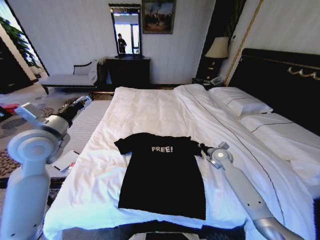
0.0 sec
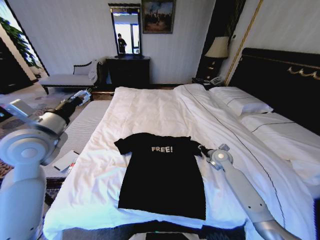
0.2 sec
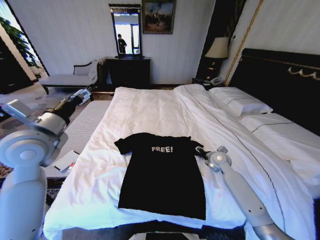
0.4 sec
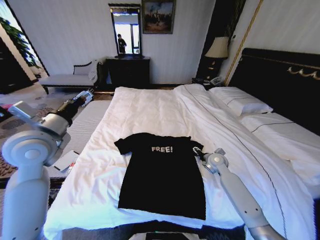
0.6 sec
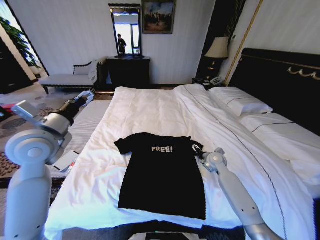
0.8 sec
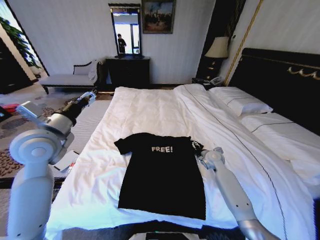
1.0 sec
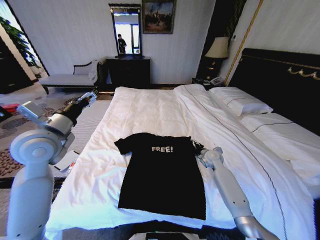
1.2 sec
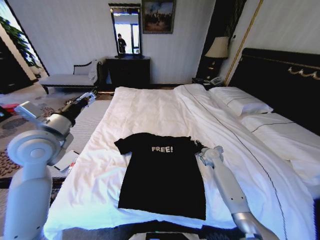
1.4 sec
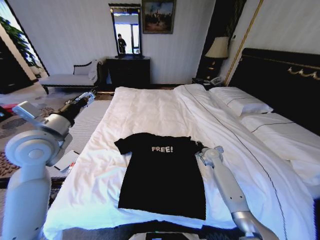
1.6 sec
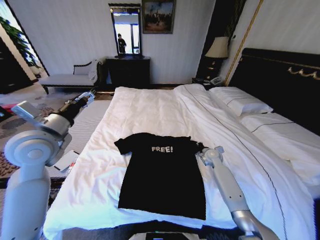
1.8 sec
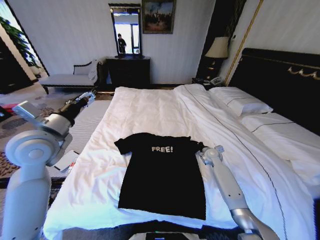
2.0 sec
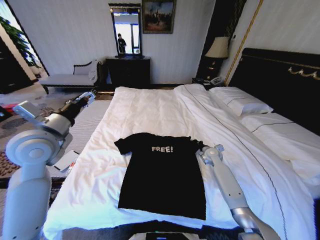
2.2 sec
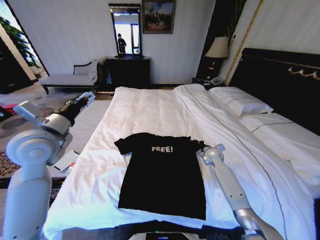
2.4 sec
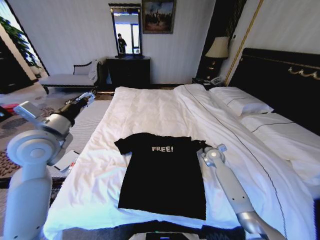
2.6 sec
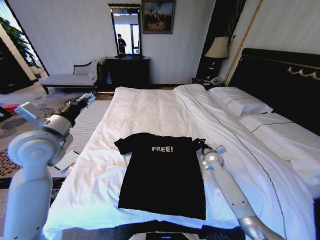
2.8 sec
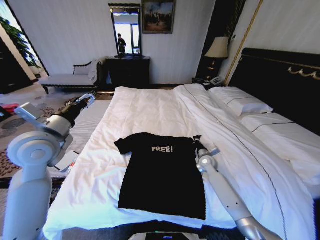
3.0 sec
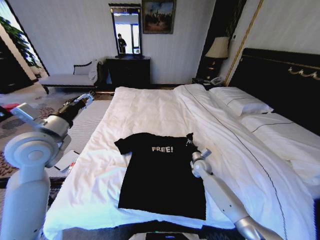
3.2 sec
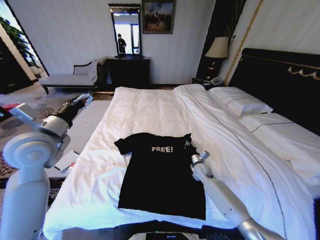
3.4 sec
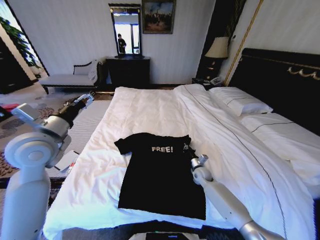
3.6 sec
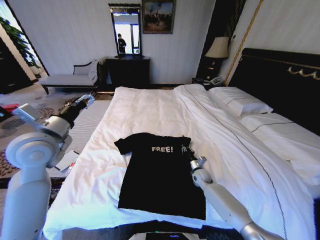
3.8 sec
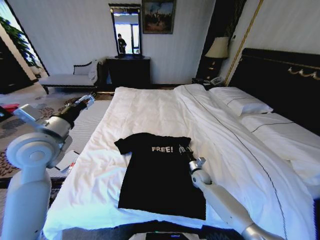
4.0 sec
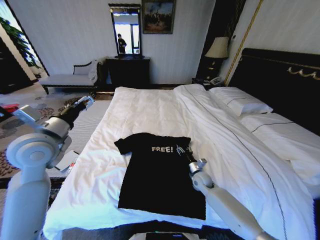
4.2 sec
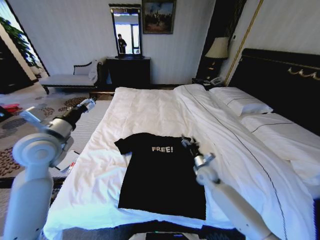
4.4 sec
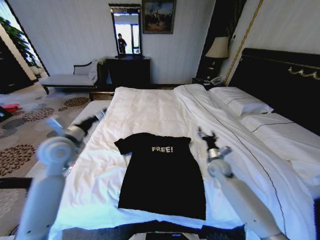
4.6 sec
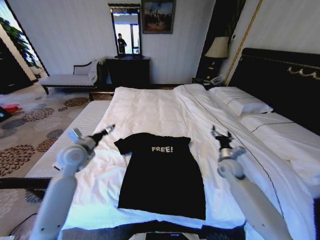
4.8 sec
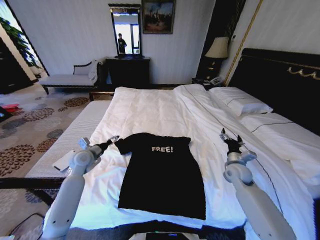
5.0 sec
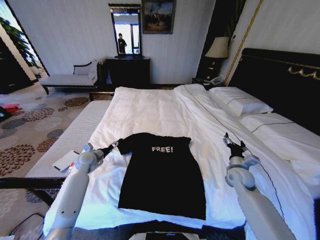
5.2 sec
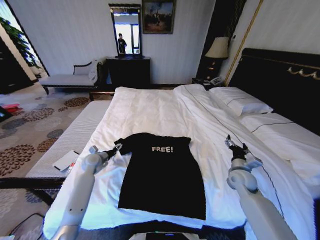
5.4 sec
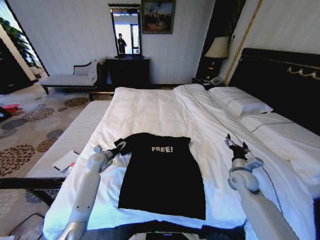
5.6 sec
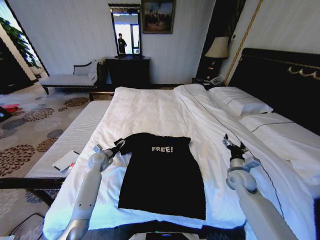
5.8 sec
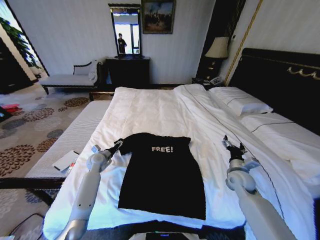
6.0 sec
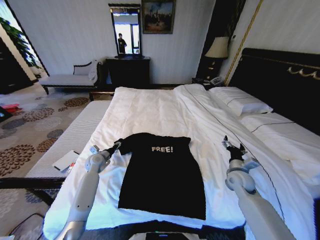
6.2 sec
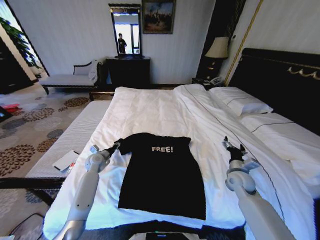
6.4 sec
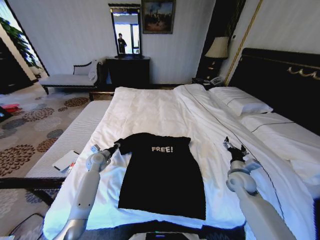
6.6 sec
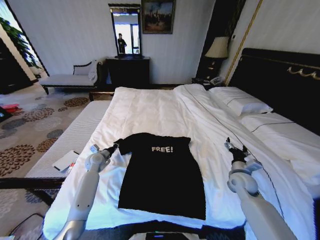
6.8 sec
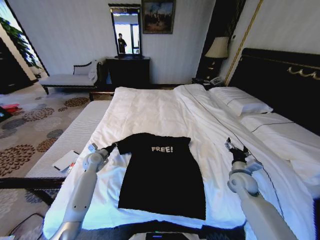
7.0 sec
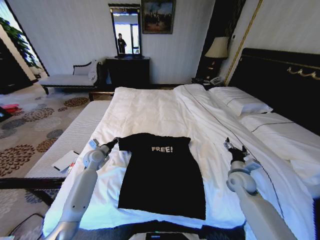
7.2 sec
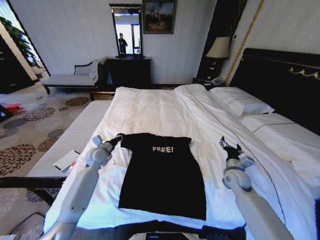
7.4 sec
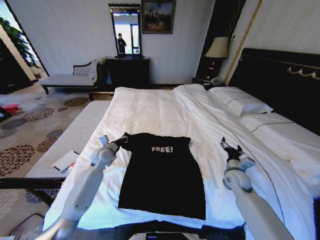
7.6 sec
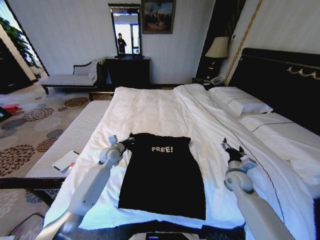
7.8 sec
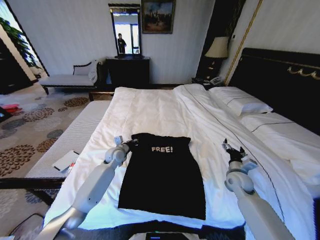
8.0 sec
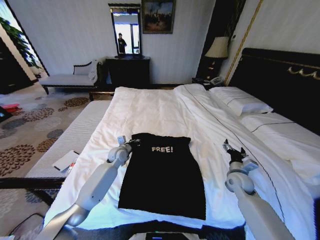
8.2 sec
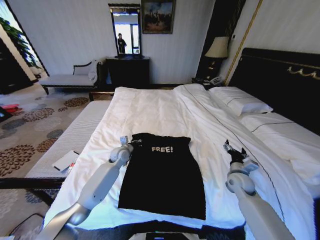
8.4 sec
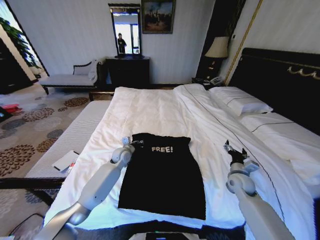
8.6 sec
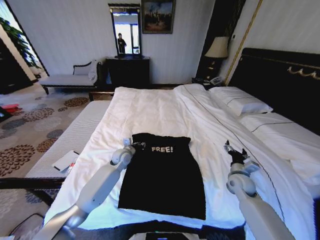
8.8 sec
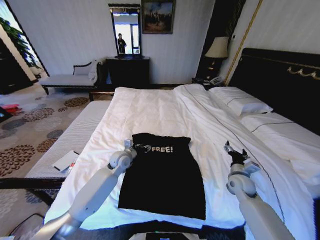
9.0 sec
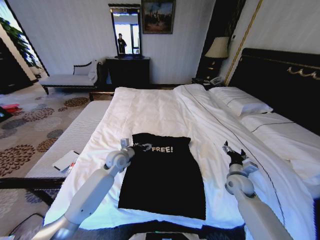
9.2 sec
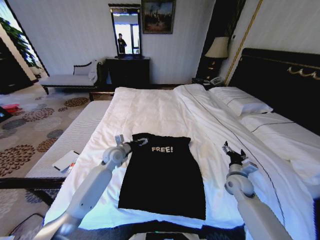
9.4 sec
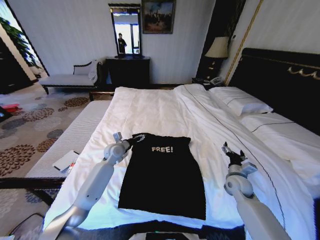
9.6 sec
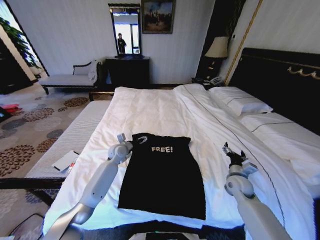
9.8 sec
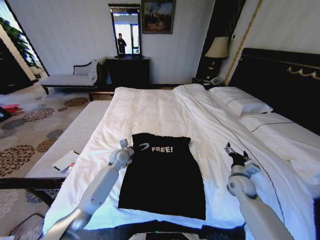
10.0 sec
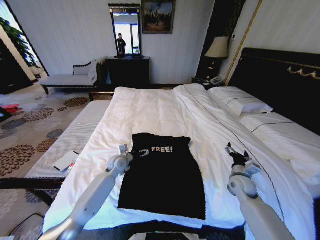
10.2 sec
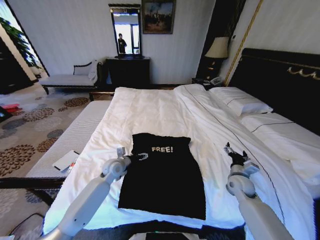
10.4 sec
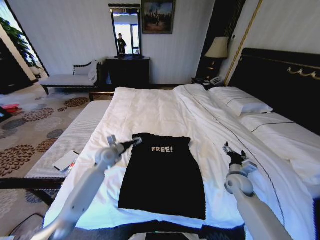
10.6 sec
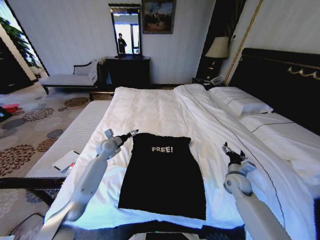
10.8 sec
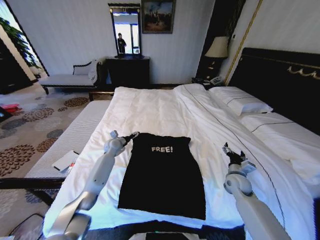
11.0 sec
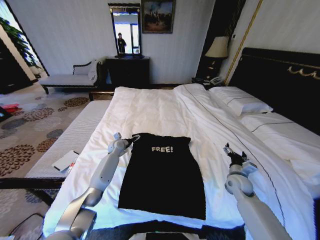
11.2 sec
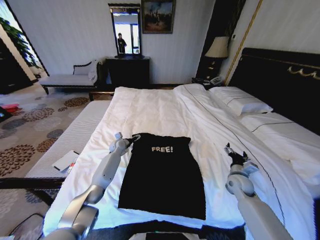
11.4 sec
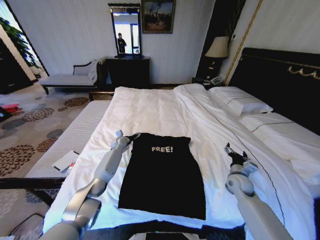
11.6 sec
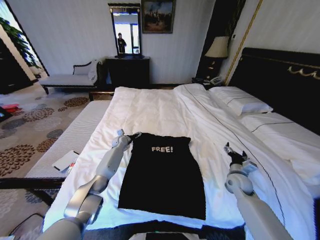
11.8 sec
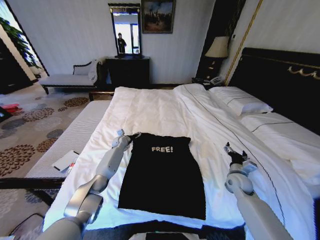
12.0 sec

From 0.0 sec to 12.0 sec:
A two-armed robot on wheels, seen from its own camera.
Task of the whole recording: Fold the clothes on the bed.
From 0.0 sec to 1.6 sec: The right gripper opens, then closes again.
From 1.6 sec to 3.0 sec: The right gripper changes place by roughly 5 cm, and closes its fingers.
From 3.0 sec to 4.4 sec: The right gripper travels backward by about 5 cm, travels downward and back again, approximately 5 cm each way, and opens up.
From 4.4 sec to 6.0 sec: The right gripper is displaced to the right by approximately 10 cm; the left gripper moves downward and forward, about 30 cm.
From 6.0 sec to 7.6 sec: The left gripper shifts some 10 cm upward and to the right, and closes up.
From 7.6 sec to 9.0 sec: The left gripper moves to the right, about 10 cm, and opens up.
From 9.0 sec to 10.4 sec: The left gripper goes forward and returns, approximately 5 cm each way, and opens.
From 10.4 sec to 12.0 sec: The left gripper travels forward by about 20 cm.

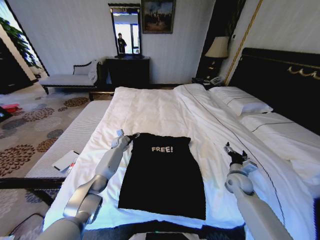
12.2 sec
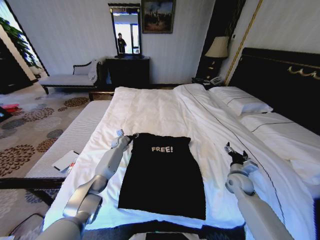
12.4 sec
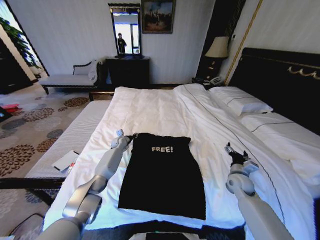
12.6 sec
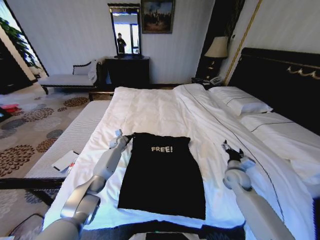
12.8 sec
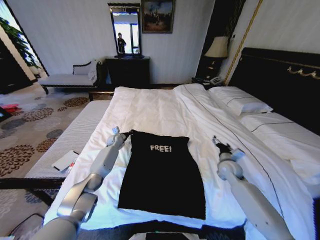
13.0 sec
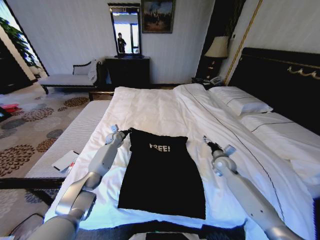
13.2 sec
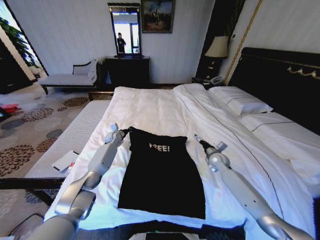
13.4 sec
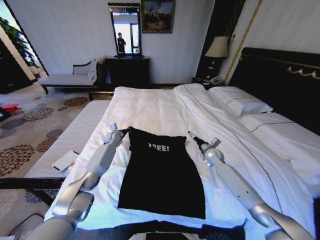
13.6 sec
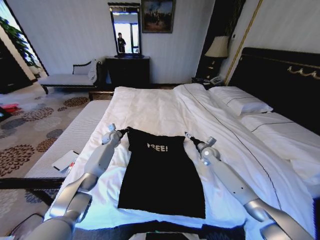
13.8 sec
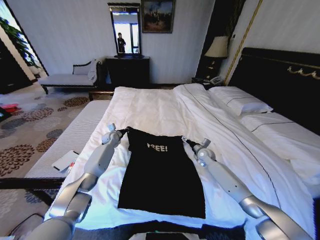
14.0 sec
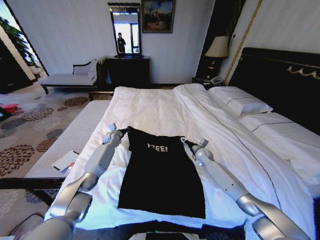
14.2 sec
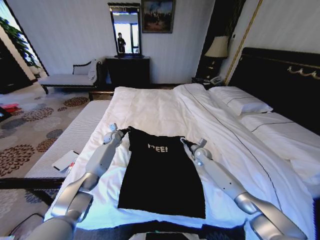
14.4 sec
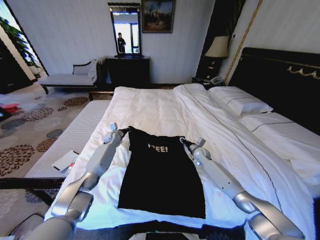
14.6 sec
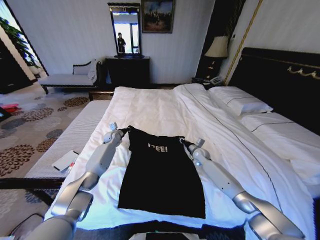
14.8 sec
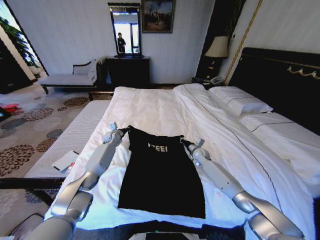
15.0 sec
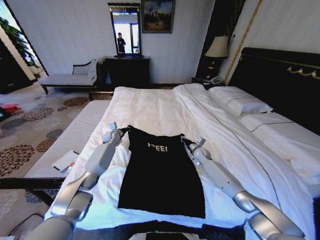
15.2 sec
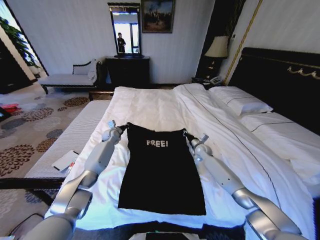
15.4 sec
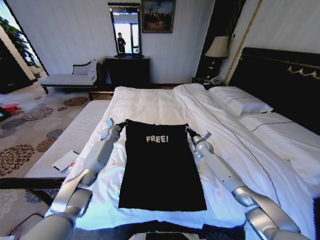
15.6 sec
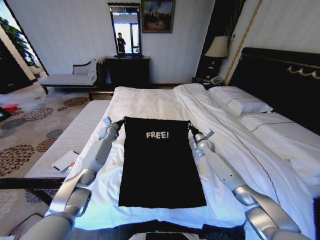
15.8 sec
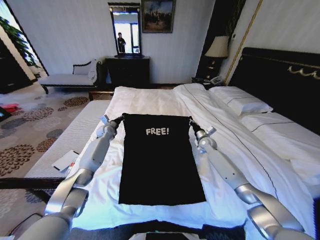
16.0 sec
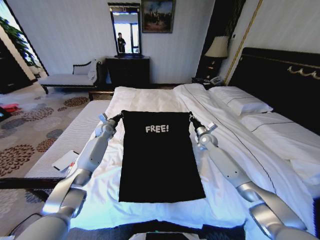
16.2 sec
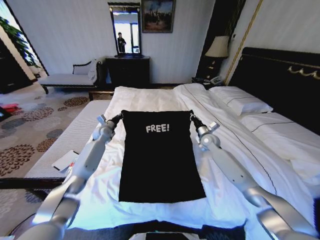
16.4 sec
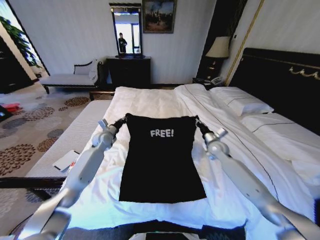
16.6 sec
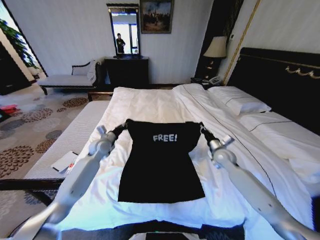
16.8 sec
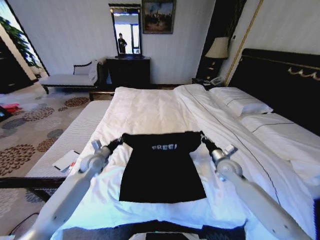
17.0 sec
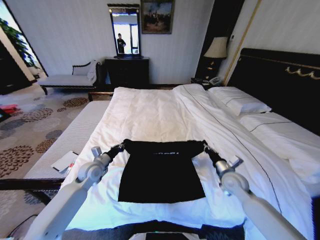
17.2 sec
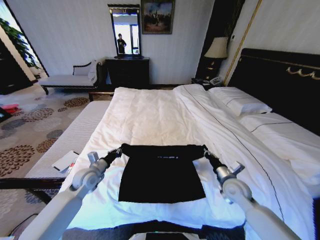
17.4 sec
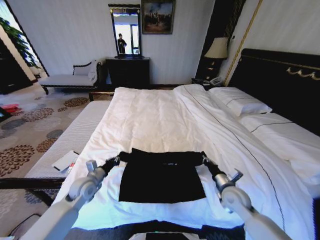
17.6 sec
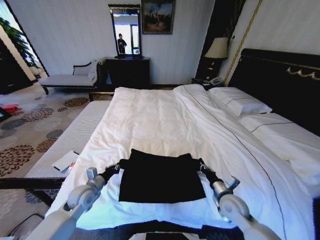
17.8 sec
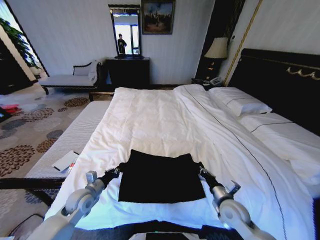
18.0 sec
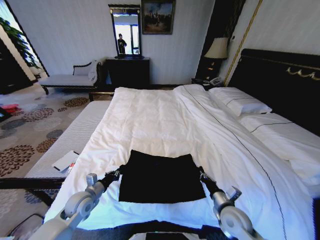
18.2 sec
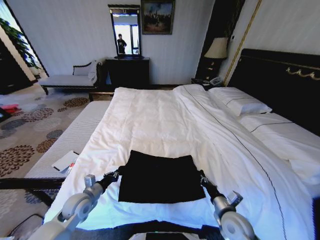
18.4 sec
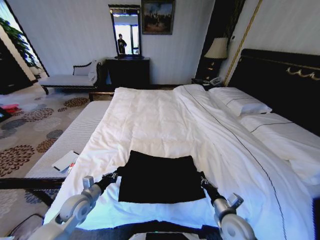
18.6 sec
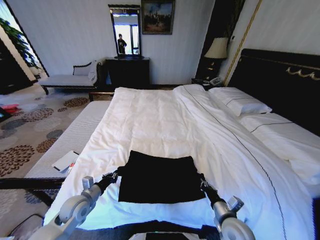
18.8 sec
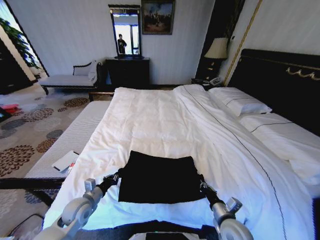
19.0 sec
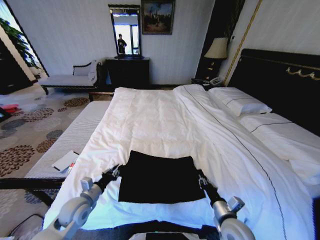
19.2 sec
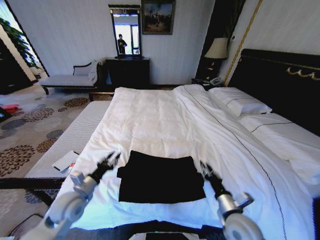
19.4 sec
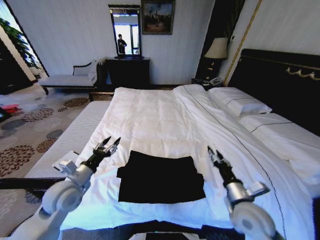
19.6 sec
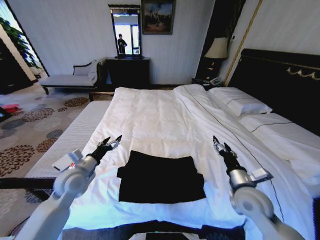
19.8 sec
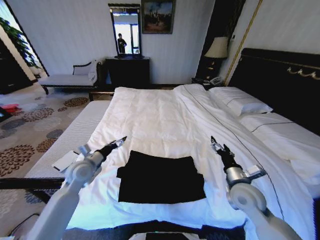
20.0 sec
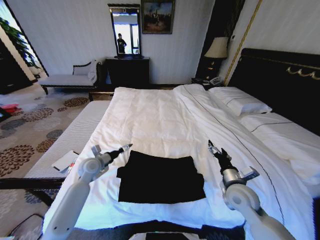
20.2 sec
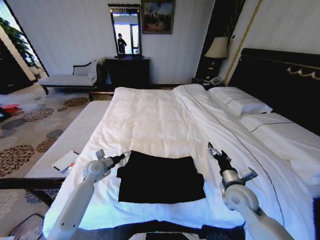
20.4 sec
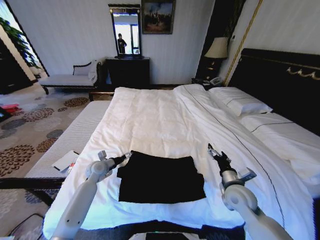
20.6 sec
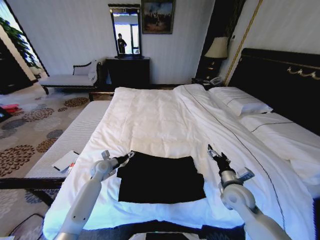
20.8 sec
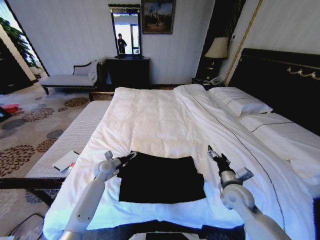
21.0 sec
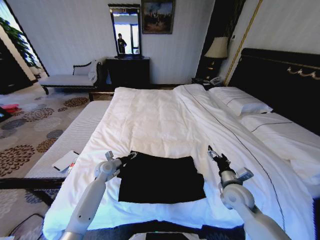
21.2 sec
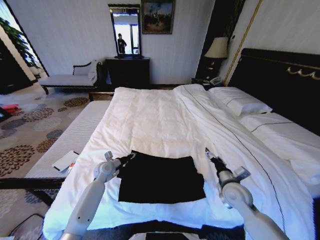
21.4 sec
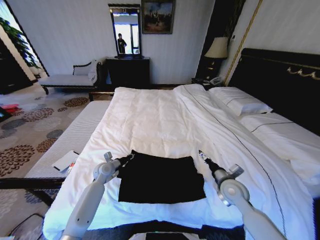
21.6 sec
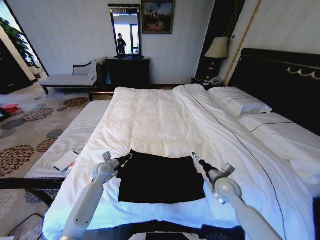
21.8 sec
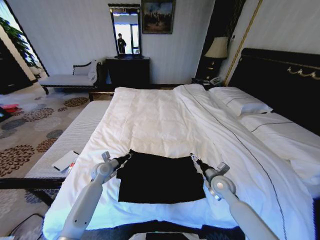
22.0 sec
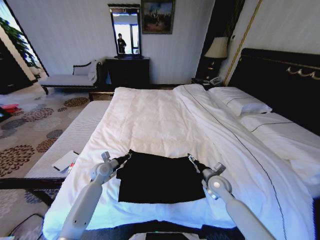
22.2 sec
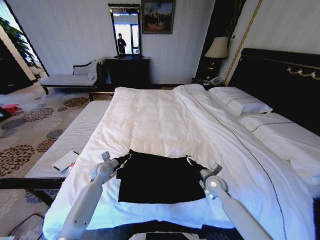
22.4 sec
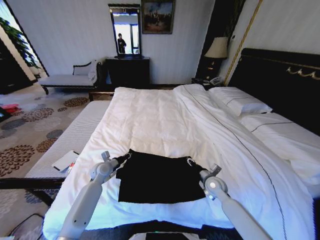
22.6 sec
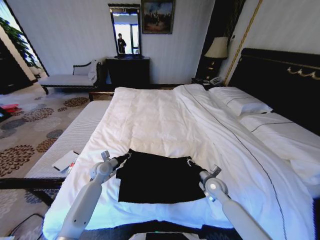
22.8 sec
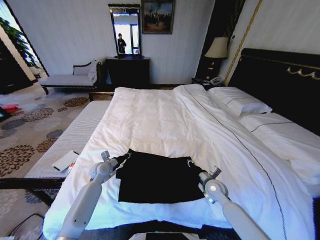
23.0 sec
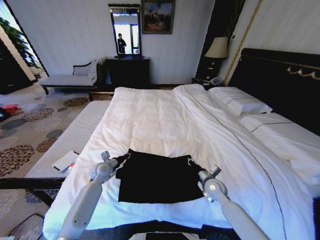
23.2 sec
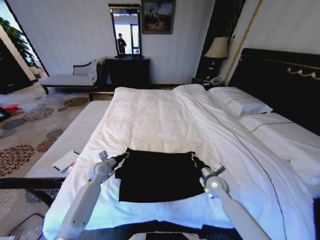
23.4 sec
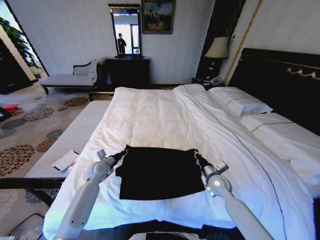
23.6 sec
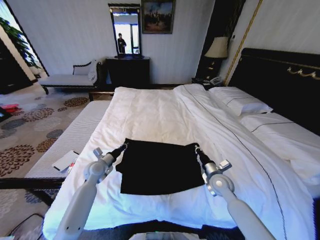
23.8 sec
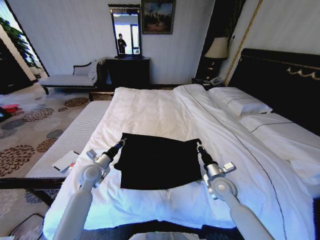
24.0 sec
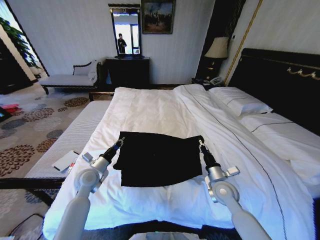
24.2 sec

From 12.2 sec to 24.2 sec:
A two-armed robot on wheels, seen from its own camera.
Task of the whole recording: Fold the clothes on the bed.
From 12.2 sec to 13.8 sec: The left gripper changes place by roughly 5 cm, and closes; the right gripper heads forward and to the left, covering about 15 cm.
From 13.8 sec to 15.2 sec: The right gripper closes its fingers.
From 15.2 sec to 16.6 sec: The right gripper moves upward, some 10 cm, while the left gripper goes roughly 10 cm backward and upward.
From 16.6 sec to 18.2 sec: Both grippers travel together backward, about 25 cm.
From 18.2 sec to 19.8 sec: The grippers both shift upward by some 10 cm. The left gripper opens; the right gripper opens up.
From 19.8 sec to 21.2 sec: The right gripper is displaced downward by roughly 5 cm; the left gripper moves downward and forward, some 20 cm.
From 21.2 sec to 22.6 sec: The left gripper closes. The right gripper is displaced downward and forward by some 10 cm, and closes.
From 22.6 sec to 24.2 sec: The right gripper heads upward, covering some 5 cm, and closes. Meanwhile the left gripper goes some 10 cm backward and upward.
